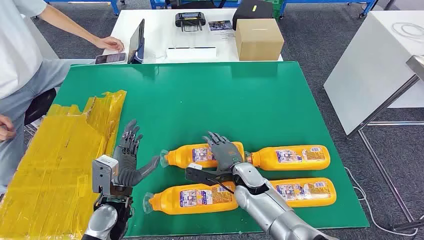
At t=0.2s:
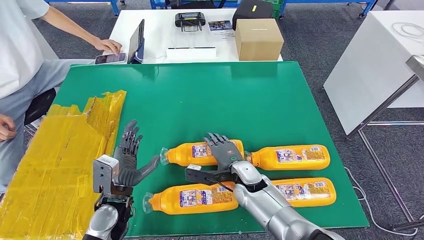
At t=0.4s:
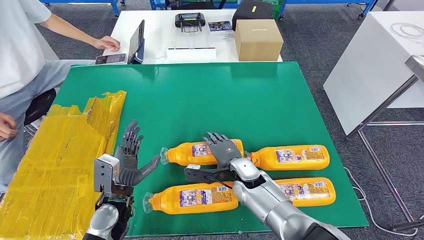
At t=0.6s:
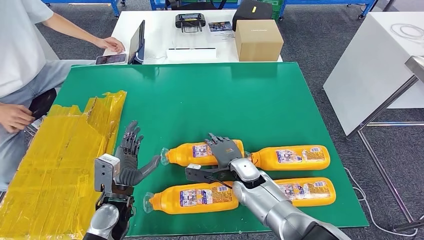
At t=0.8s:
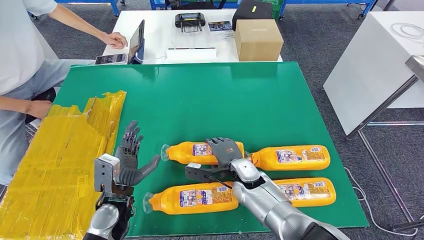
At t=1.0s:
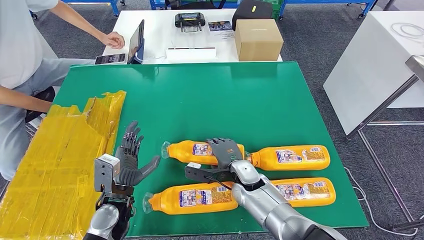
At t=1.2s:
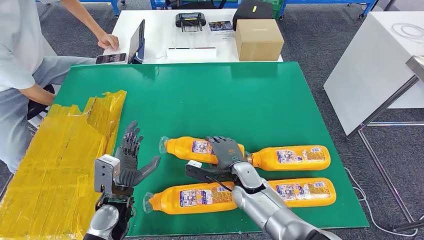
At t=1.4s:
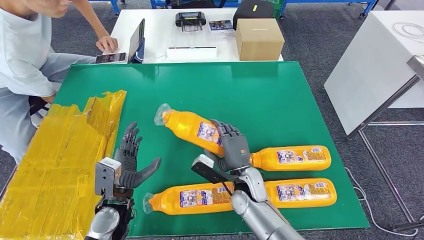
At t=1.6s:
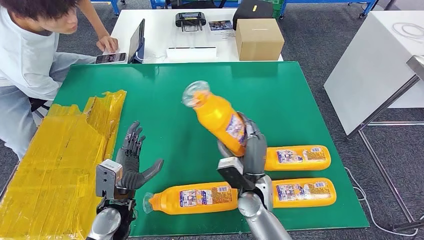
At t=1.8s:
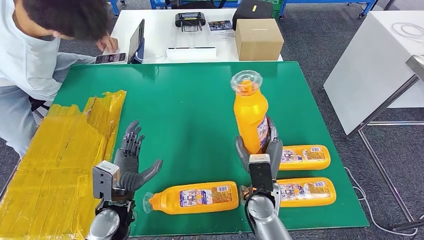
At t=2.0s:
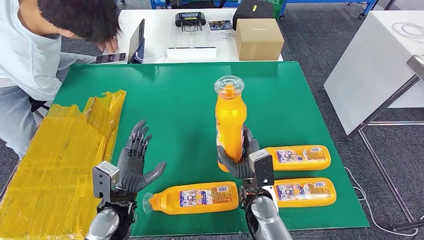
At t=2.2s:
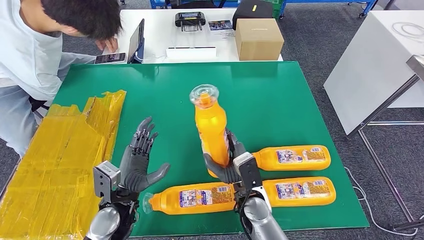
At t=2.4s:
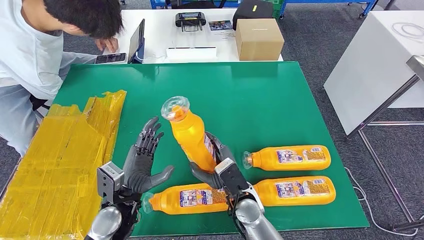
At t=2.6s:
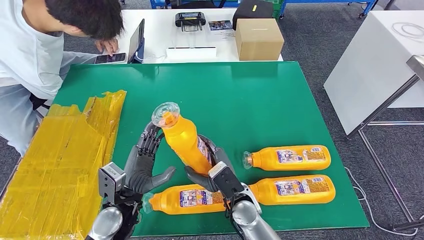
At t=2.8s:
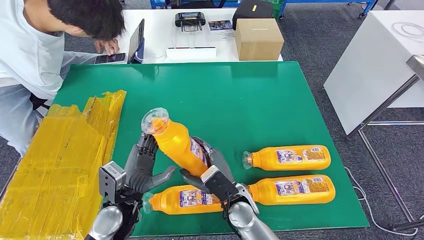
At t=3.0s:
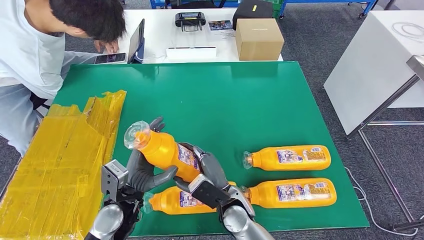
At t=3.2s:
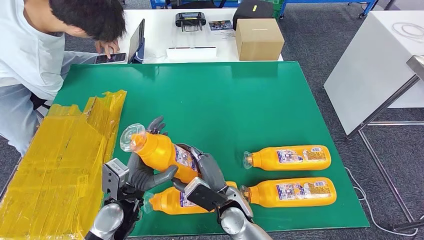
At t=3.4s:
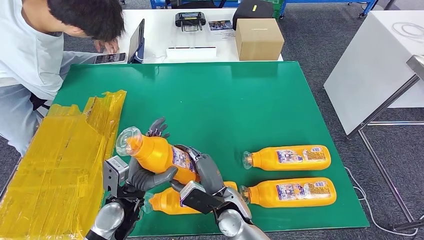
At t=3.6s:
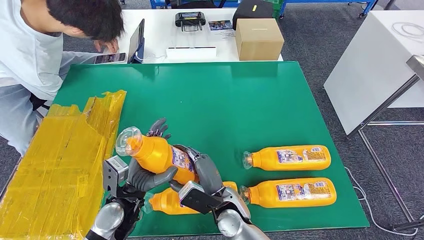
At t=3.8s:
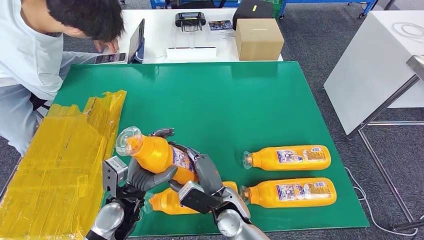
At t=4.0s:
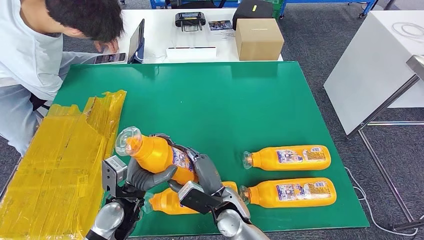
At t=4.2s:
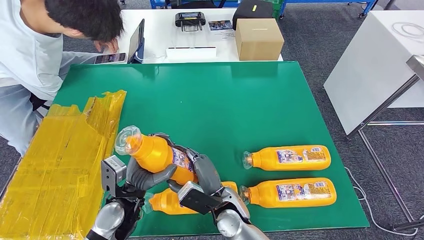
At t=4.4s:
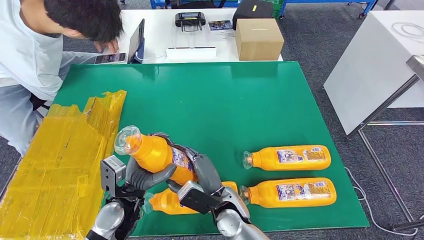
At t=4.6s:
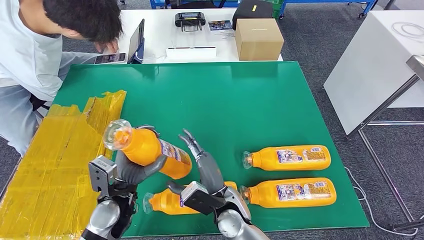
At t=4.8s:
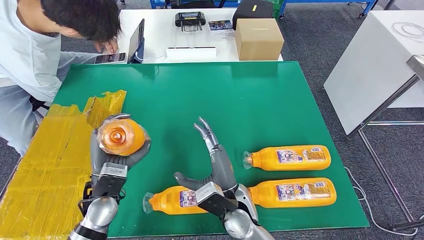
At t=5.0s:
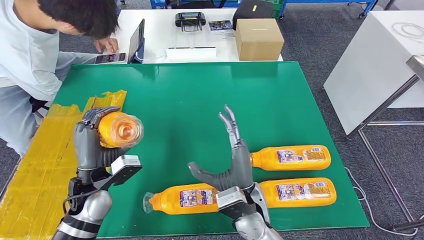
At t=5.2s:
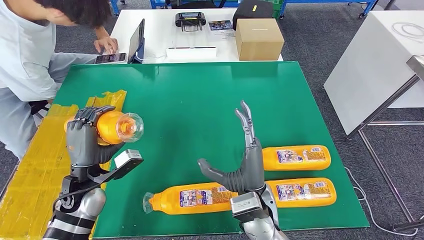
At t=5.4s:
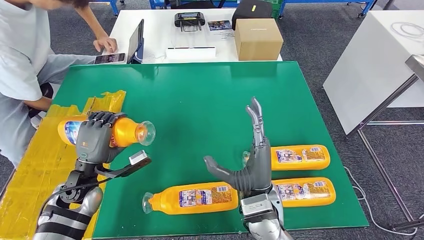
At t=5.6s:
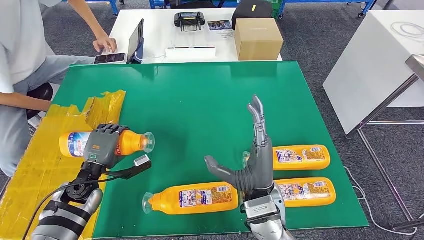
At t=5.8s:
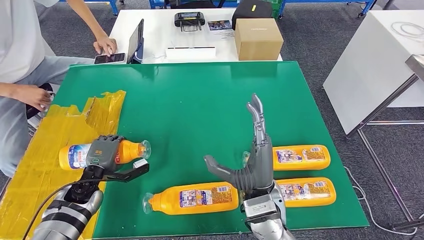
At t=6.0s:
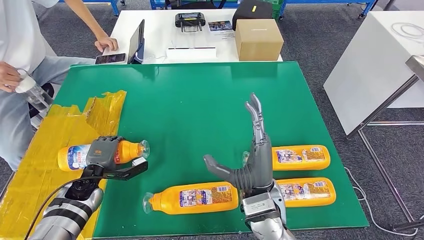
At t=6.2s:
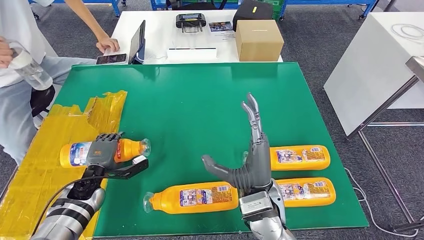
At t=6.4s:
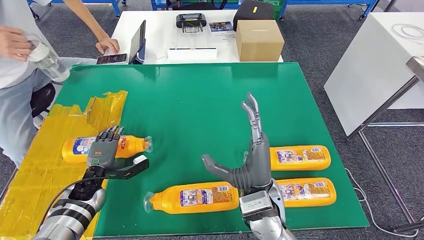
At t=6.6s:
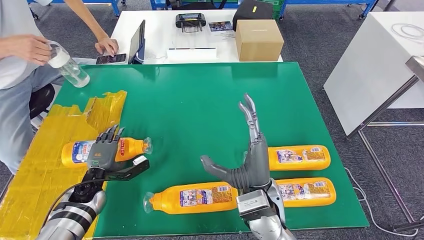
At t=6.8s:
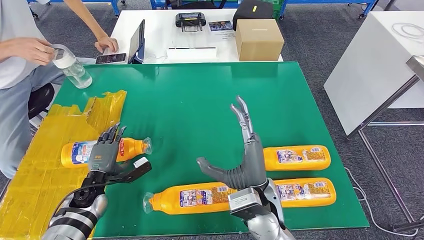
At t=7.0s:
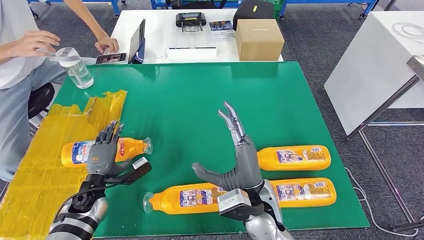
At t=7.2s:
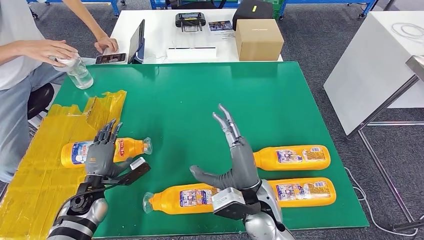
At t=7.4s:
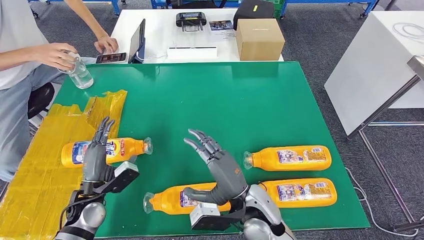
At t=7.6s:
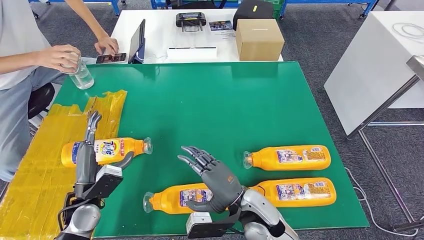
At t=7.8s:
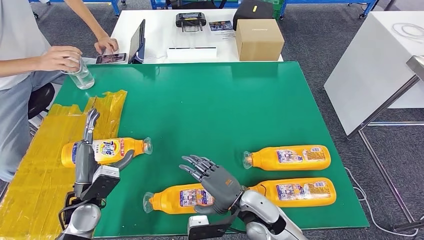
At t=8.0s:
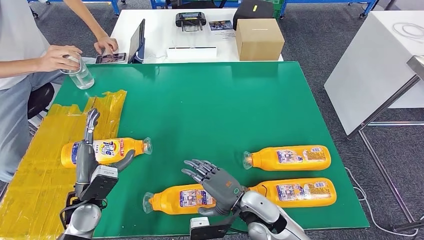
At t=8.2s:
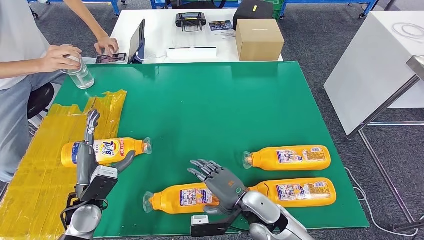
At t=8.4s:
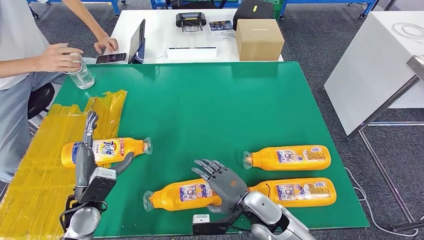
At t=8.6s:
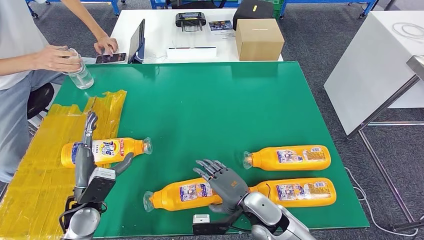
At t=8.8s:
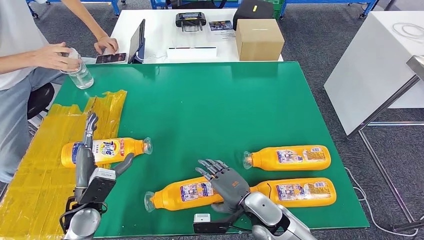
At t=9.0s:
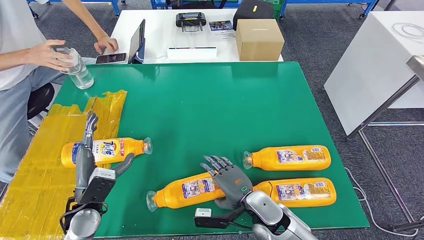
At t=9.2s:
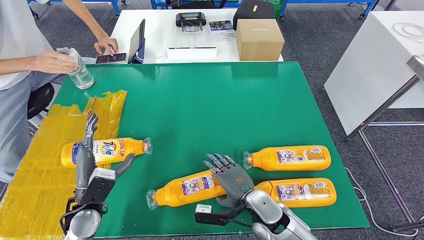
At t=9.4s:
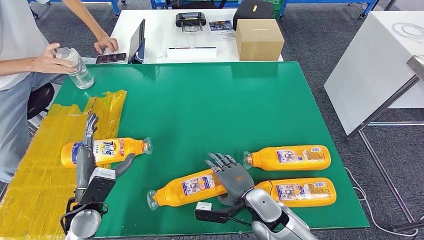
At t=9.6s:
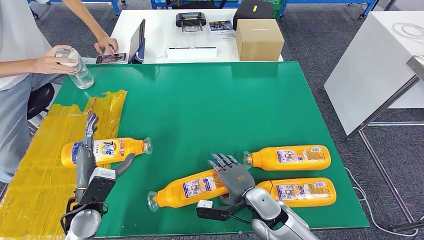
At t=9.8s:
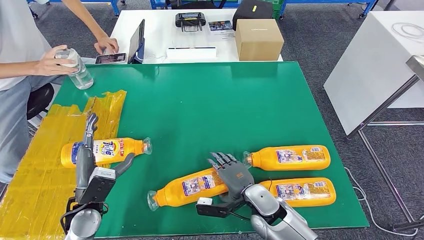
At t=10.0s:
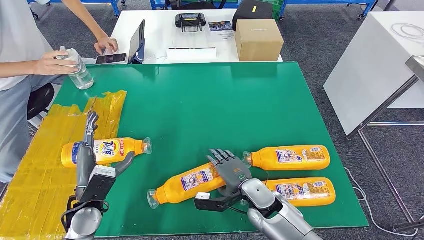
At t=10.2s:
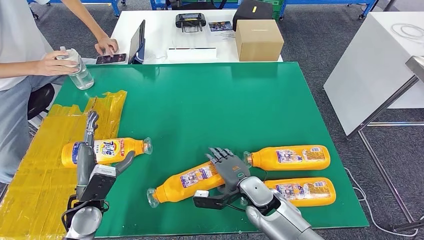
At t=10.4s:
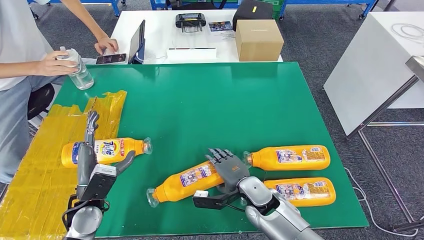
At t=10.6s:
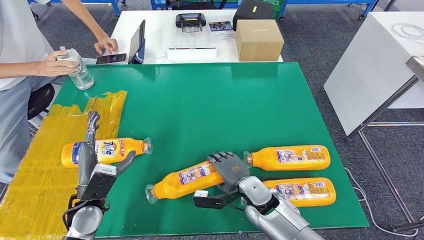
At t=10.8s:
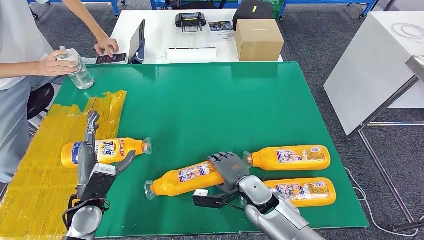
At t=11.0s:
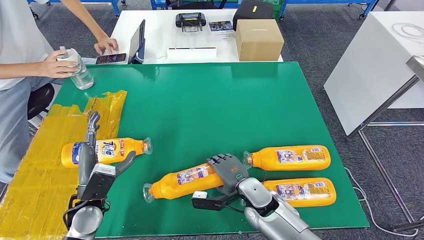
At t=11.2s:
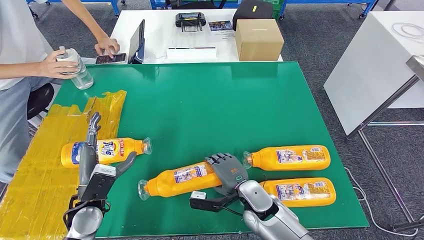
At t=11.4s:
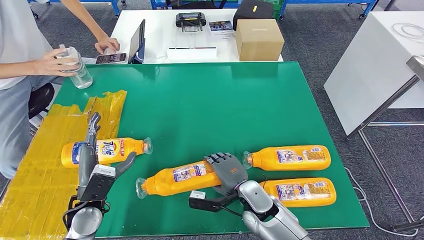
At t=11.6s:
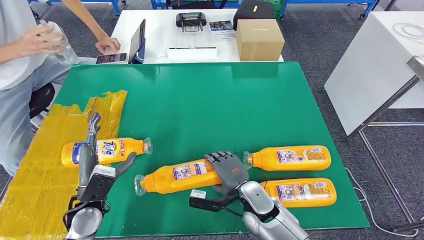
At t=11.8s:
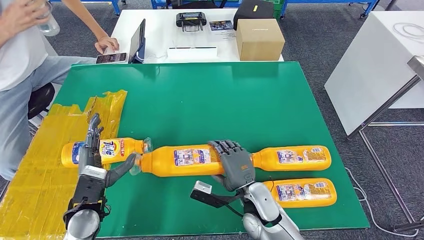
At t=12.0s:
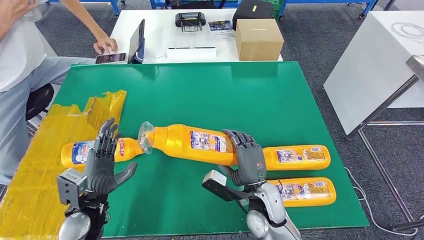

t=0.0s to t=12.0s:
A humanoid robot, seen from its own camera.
Step, t=0.0s to t=3.6s: Take the bottle from the table.
Step, t=3.8s to t=7.4s: Flip the bottle to face forward.
t=1.6s to t=3.0s: The right hand moves to the left, some 5 cm.
t=3.0s to t=4.4s: The hands stay close to where they were, moving slightly.
t=6.0s to t=7.6s: The left hand heads backward, covering about 5 cm. Meanwhile the right hand heads downward, covering approximately 5 cm.
t=7.6s to t=9.0s: The right hand shifts about 5 cm downward.
t=9.0s to t=10.4s: There are only small adjustments of the hands.
t=10.4s to t=12.0s: The right hand changes place by some 5 cm.

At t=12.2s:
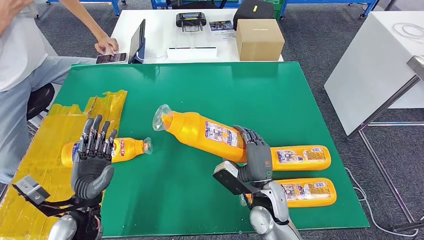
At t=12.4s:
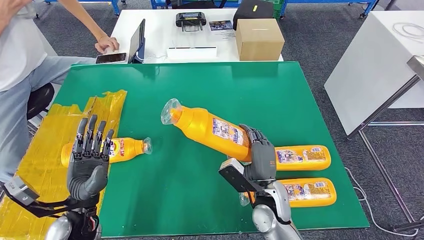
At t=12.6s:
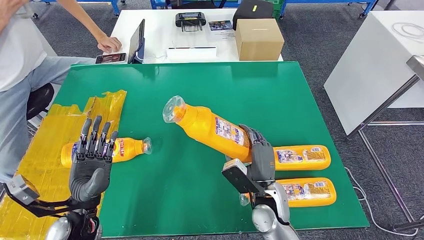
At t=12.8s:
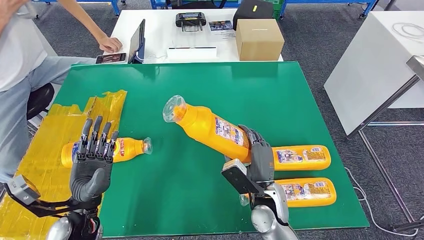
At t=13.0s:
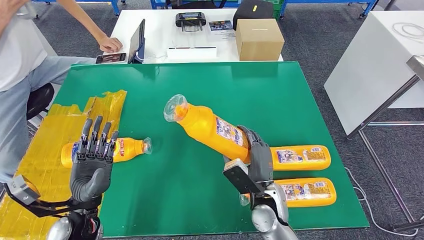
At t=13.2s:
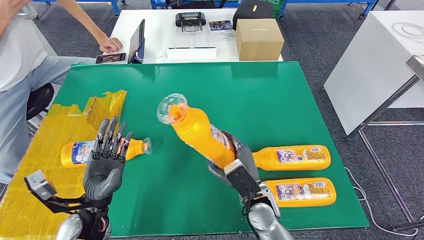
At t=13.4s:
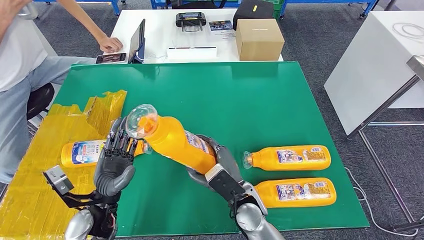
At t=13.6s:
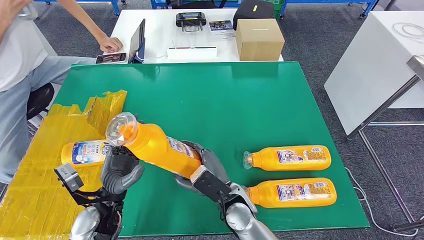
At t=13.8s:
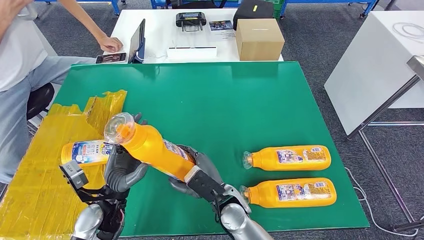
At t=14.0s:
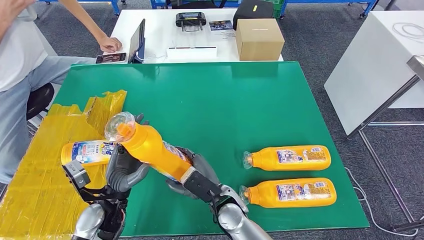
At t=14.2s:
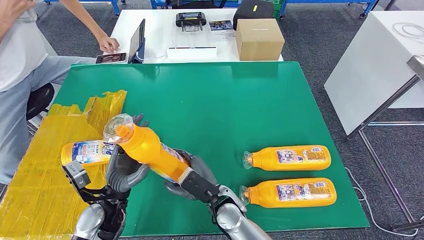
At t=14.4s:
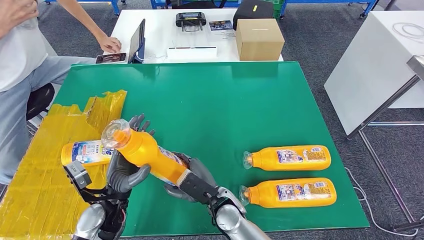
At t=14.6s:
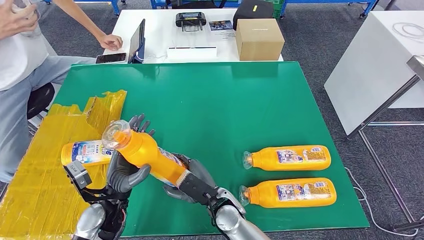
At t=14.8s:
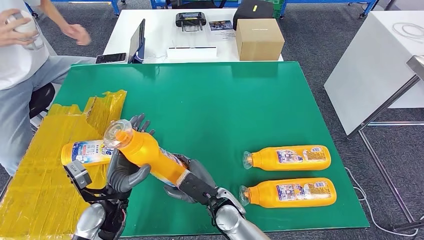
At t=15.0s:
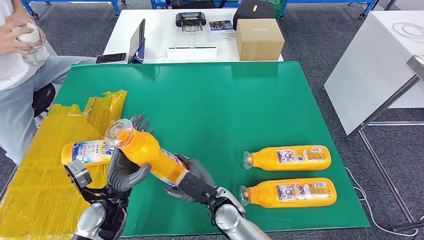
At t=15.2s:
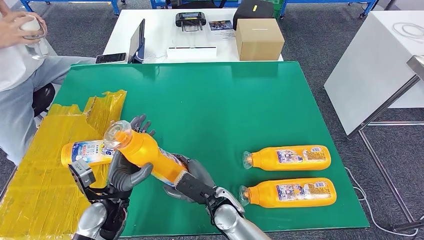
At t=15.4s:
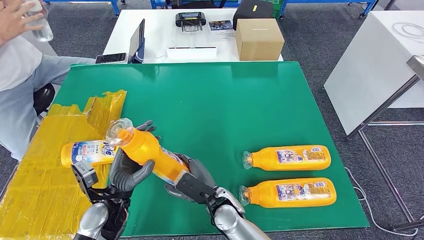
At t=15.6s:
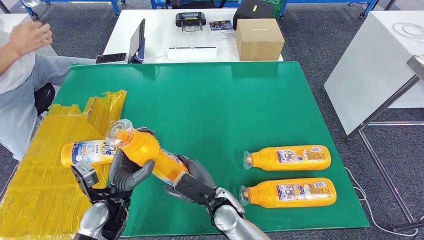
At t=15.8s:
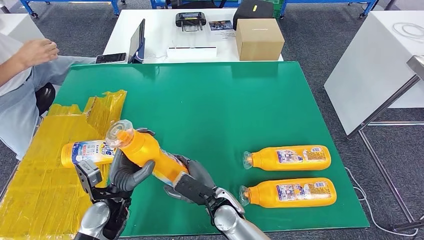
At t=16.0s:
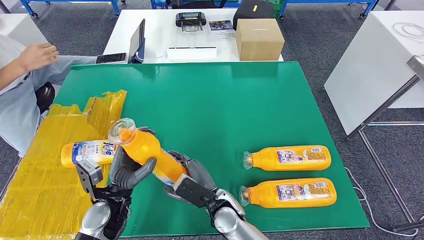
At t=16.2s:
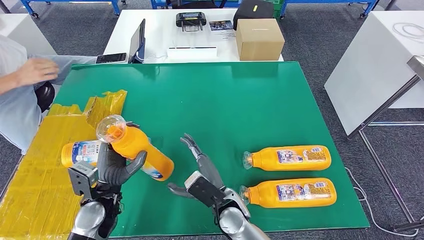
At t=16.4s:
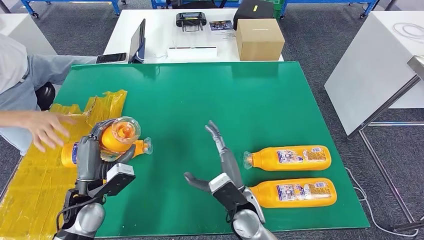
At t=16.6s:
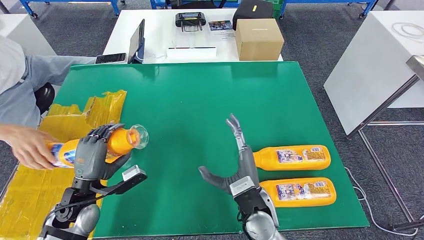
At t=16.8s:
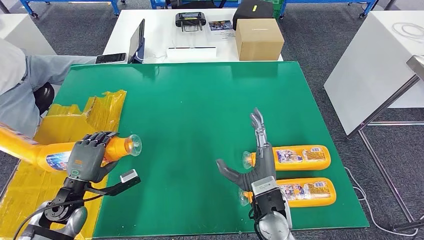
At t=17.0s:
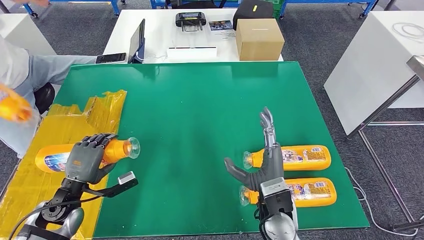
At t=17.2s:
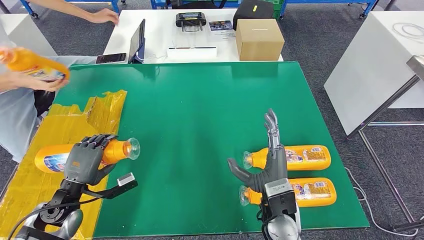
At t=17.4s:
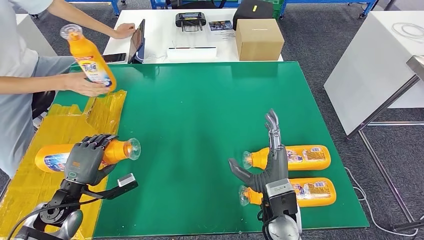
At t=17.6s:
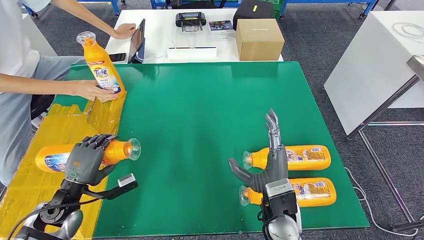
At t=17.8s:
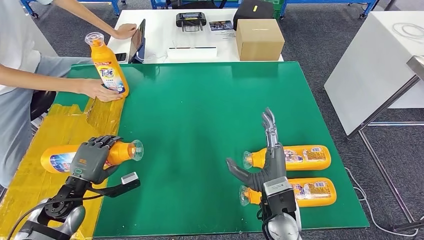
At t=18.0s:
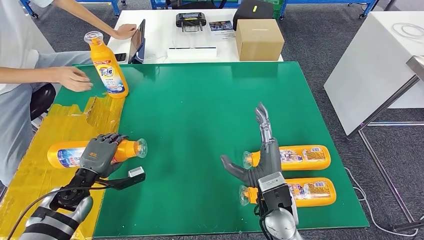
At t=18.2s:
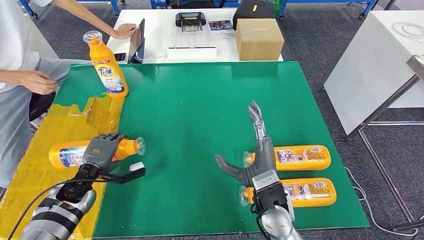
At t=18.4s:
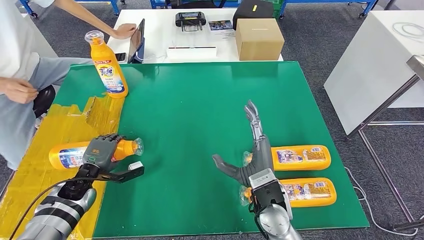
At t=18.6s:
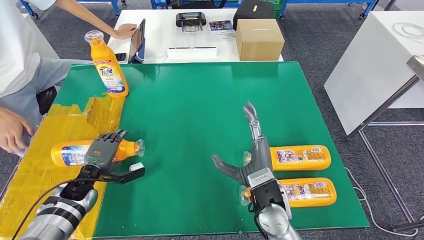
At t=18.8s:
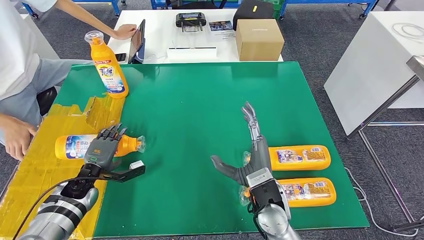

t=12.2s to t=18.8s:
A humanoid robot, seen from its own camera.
Step, t=13.2s to t=18.6s: Flip the bottle to face forward.
t=12.2s to t=13.8s: The right hand heads to the left, covering about 10 cm. The left hand is displaced to the right by approximately 5 cm.
t=13.8s to t=15.4s: The hands move only a little.
t=15.4s to t=17.2s: The left hand moves to the left, about 10 cm; the right hand goes about 15 cm to the right and upward.
t=17.2s to t=18.8s: The left hand moves forward and downward, approximately 10 cm.
